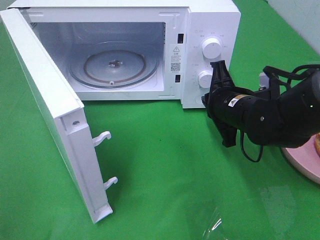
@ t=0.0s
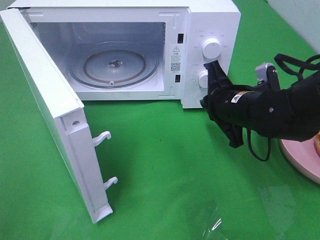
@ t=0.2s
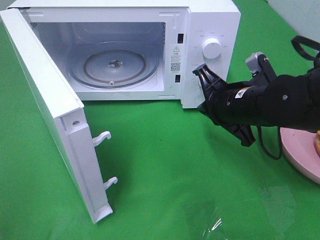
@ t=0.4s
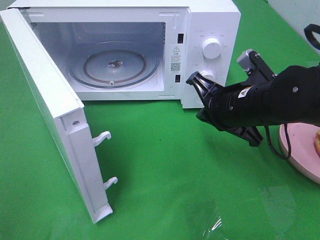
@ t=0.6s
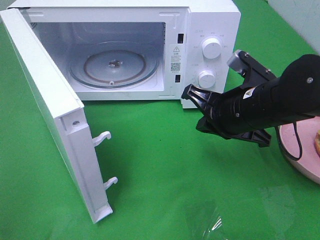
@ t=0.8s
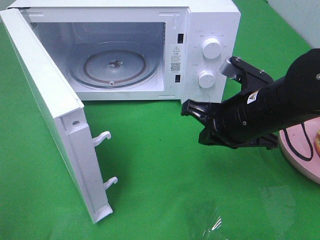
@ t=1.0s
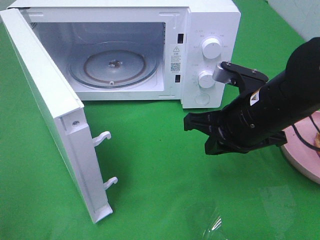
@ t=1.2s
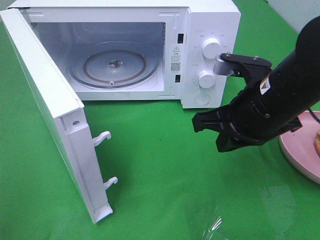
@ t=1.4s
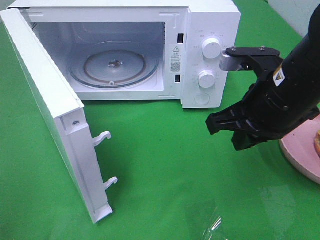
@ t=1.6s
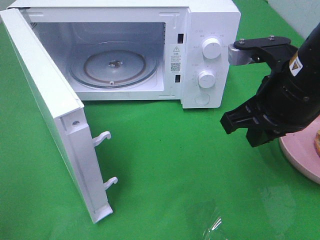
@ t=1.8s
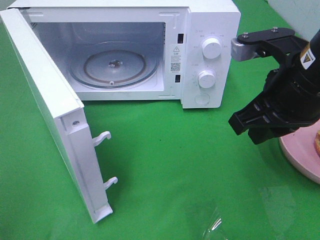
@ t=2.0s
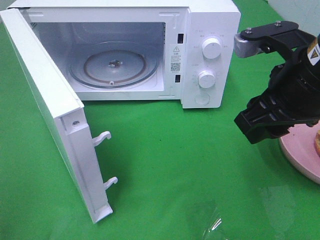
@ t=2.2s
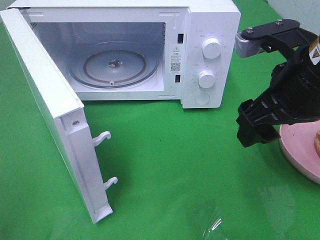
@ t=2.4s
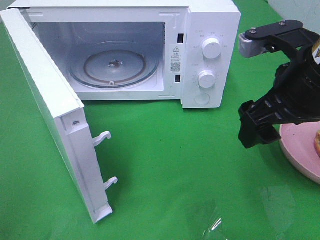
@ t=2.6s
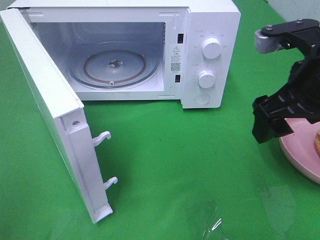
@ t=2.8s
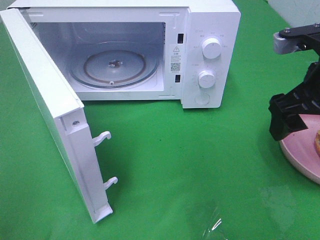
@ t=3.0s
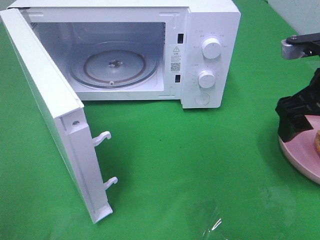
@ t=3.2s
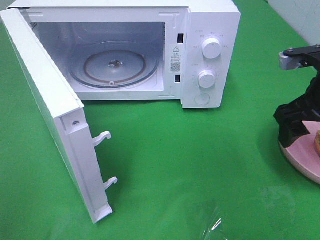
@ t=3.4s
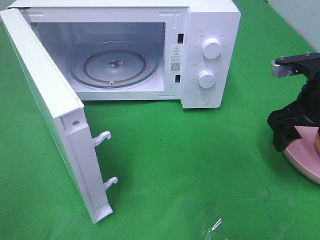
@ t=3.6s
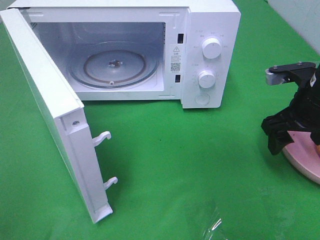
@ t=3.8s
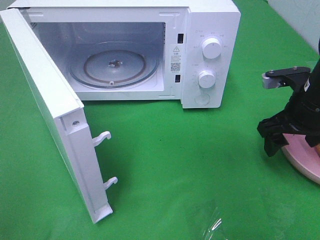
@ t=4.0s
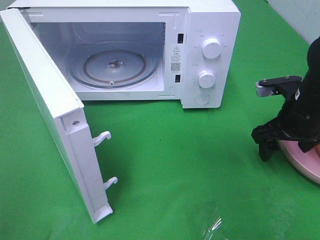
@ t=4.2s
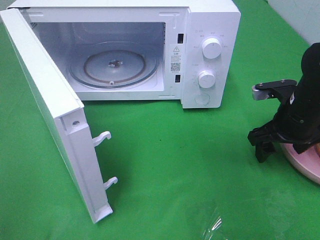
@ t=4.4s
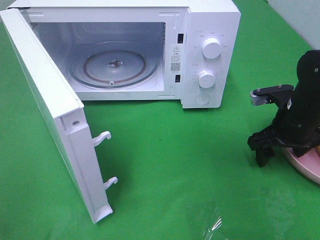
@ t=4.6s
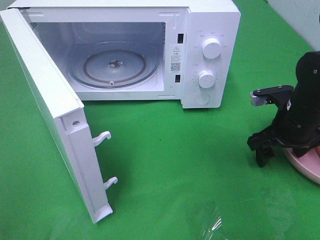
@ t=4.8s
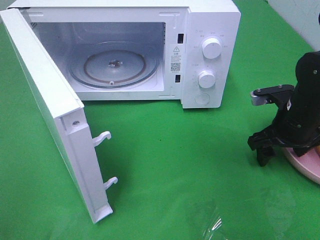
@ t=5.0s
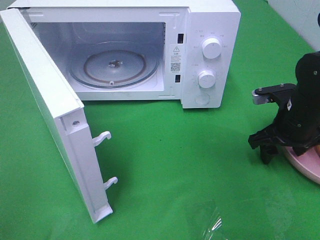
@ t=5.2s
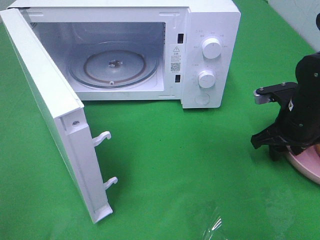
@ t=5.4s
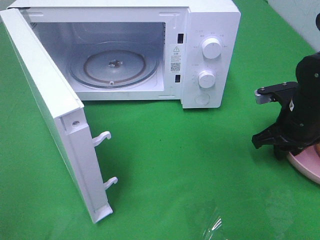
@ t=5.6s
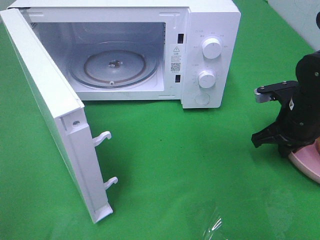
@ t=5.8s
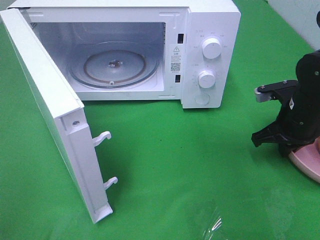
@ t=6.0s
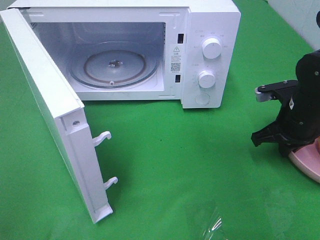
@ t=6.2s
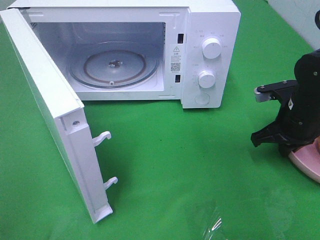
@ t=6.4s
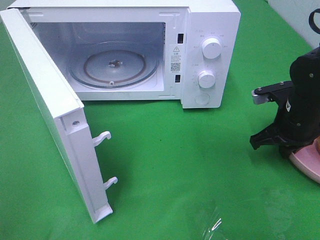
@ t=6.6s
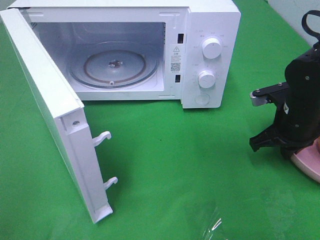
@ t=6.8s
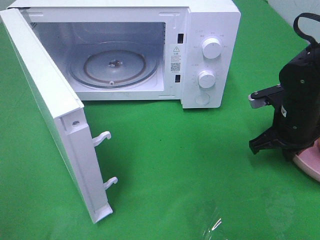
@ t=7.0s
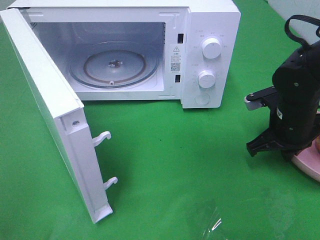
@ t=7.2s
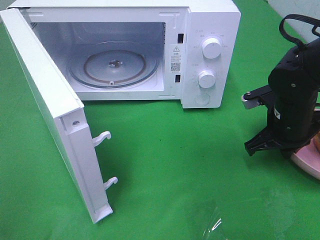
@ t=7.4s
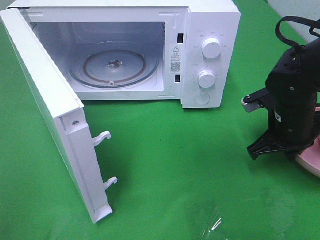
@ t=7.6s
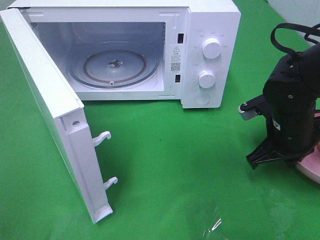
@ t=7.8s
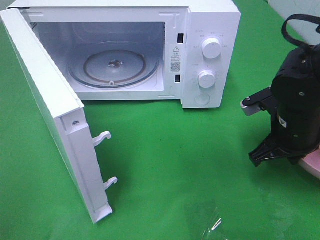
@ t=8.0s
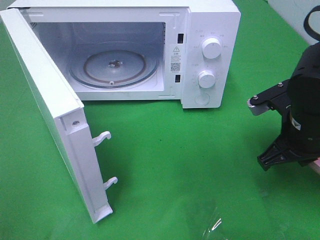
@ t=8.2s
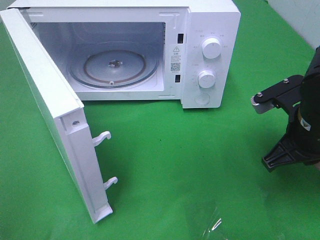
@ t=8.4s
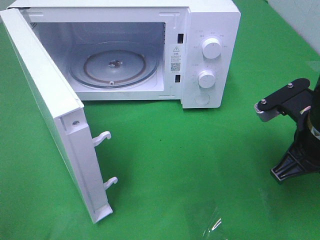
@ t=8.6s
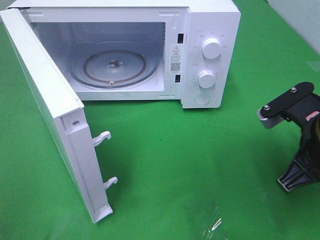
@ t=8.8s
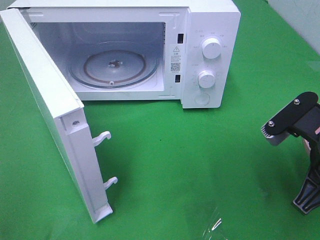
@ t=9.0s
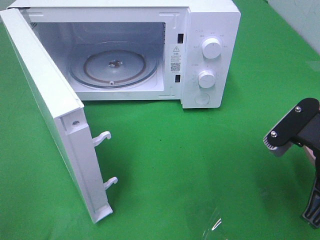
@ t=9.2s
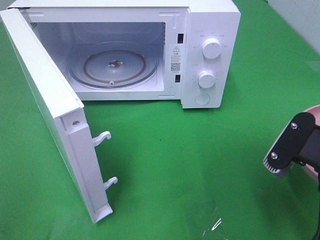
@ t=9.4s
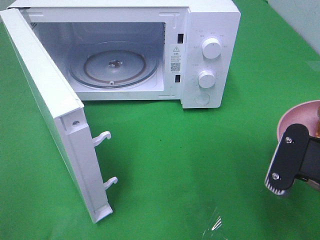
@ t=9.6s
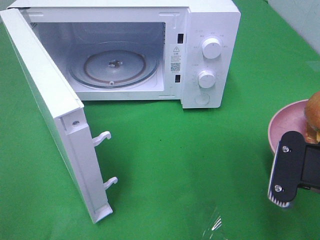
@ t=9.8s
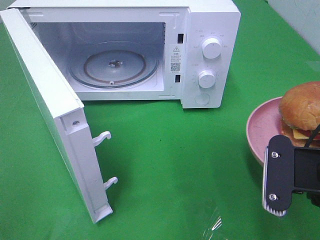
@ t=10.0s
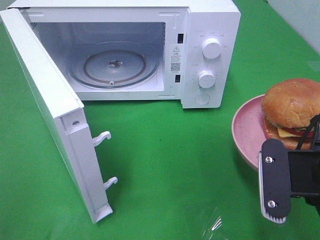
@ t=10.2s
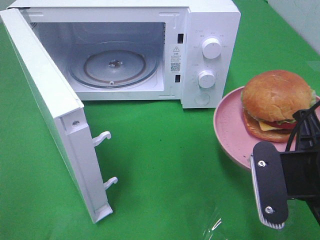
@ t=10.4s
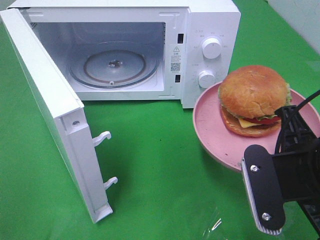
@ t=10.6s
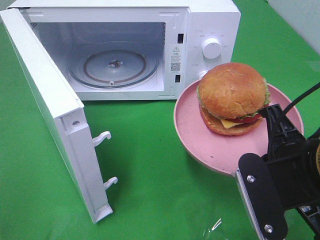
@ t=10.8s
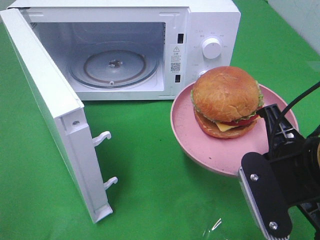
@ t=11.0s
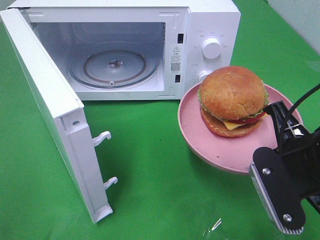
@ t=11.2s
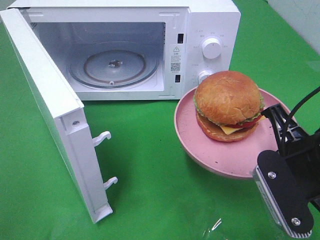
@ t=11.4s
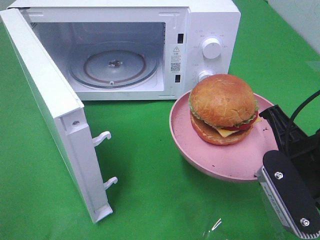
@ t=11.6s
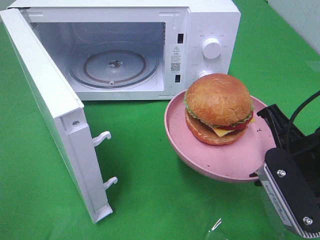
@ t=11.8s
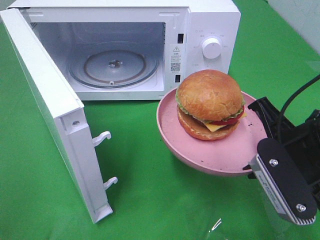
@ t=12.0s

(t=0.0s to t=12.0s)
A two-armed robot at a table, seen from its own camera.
Task of the whole recording: Heat the burger.
Step, t=0.0s - t=6.8s: Right hand: grab the plate with the hamburger.
t=0.0s - t=1.6s: The right gripper shifts some 10 cm upward and backward.
t=1.6s - t=3.0s: The right gripper goes approximately 5 cm to the right, and opens up.
t=3.0s - t=4.4s: The right gripper is displaced downward and forward by roughly 15 cm.
t=4.4s - t=6.0s: The right gripper closes.
t=6.0s - t=7.6s: The grippers move only a little.
t=7.6s - t=9.0s: The right gripper goes about 15 cm backward and upward.

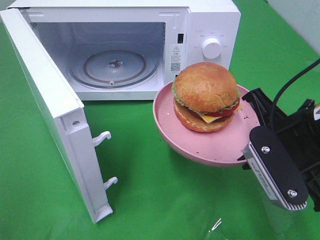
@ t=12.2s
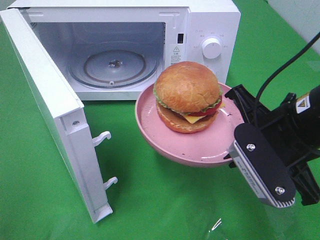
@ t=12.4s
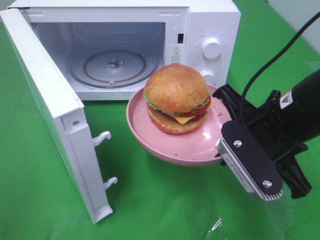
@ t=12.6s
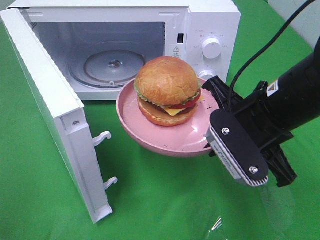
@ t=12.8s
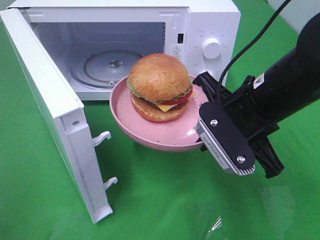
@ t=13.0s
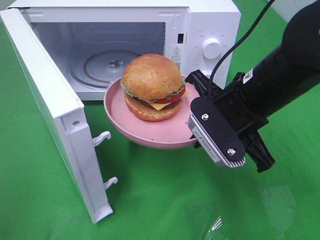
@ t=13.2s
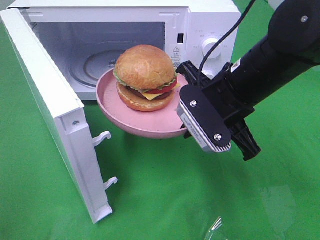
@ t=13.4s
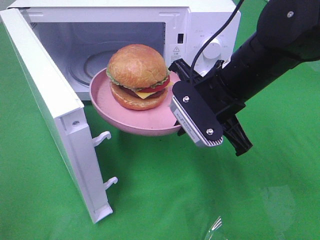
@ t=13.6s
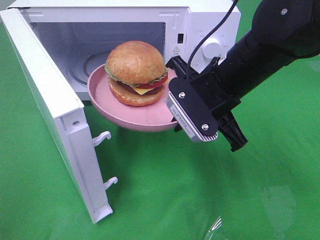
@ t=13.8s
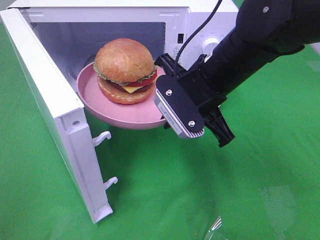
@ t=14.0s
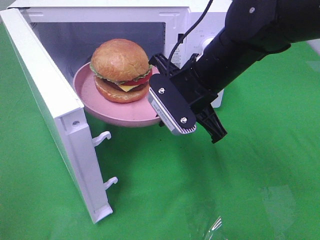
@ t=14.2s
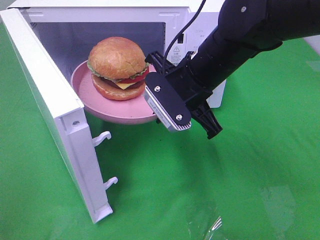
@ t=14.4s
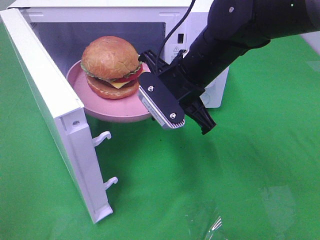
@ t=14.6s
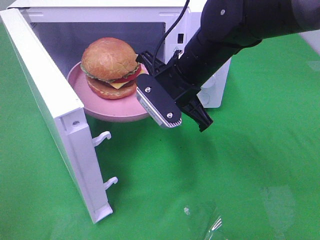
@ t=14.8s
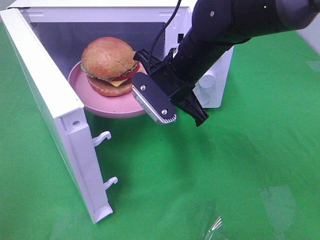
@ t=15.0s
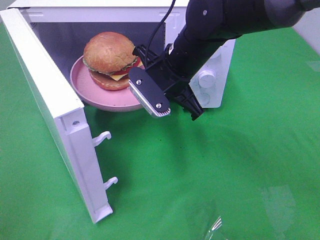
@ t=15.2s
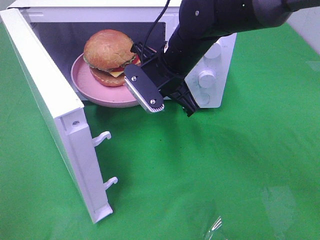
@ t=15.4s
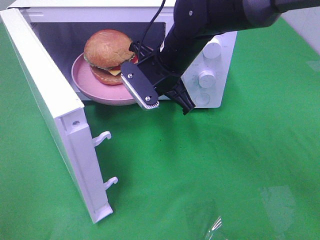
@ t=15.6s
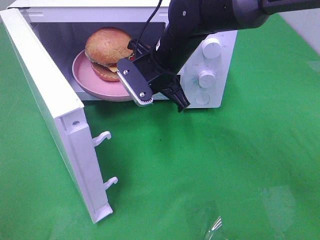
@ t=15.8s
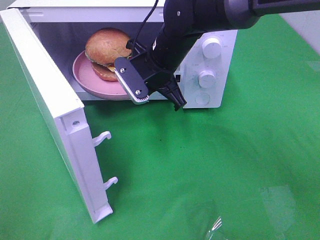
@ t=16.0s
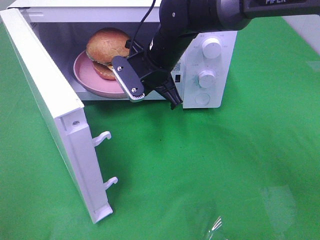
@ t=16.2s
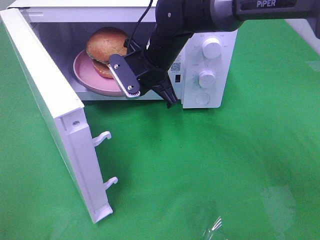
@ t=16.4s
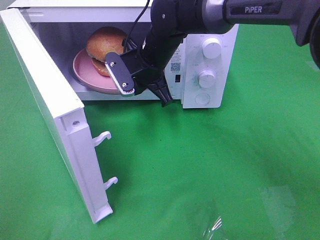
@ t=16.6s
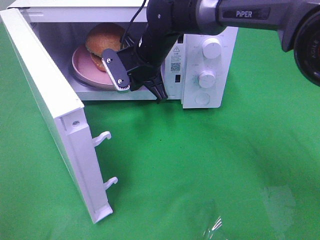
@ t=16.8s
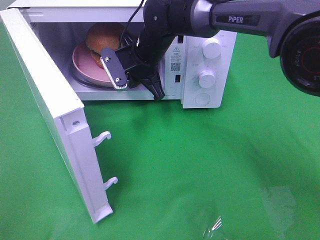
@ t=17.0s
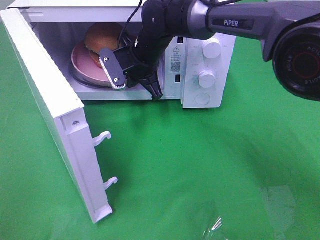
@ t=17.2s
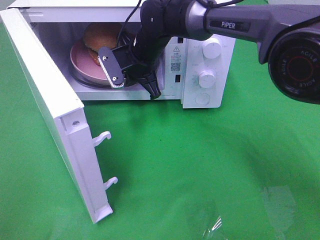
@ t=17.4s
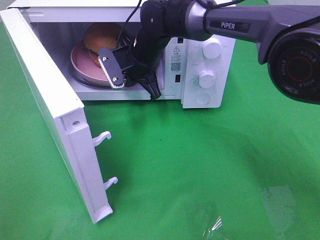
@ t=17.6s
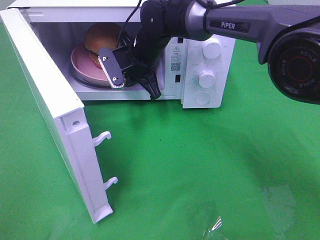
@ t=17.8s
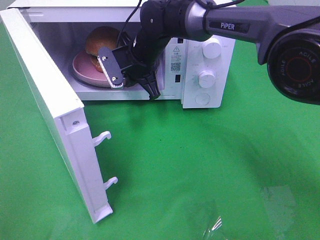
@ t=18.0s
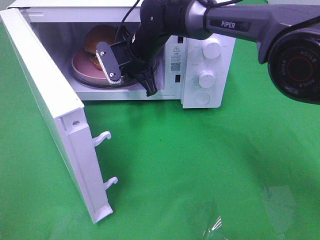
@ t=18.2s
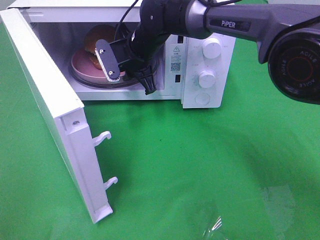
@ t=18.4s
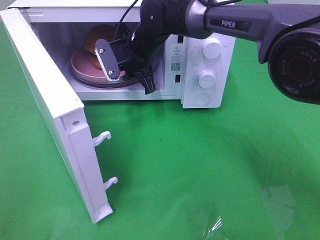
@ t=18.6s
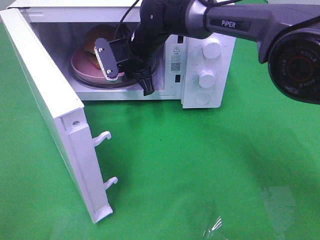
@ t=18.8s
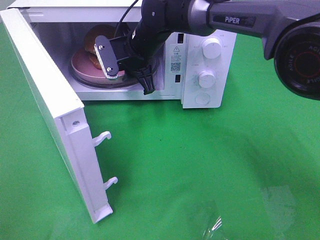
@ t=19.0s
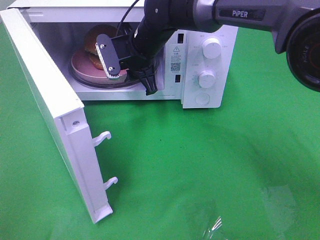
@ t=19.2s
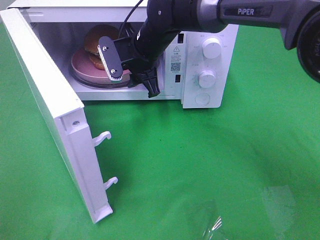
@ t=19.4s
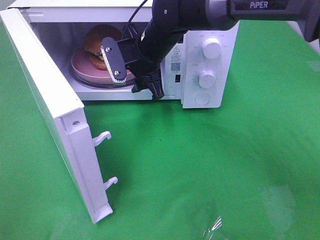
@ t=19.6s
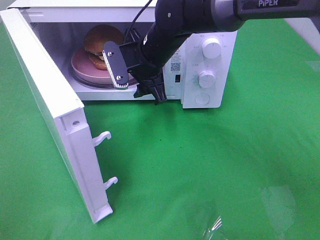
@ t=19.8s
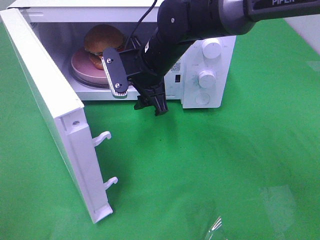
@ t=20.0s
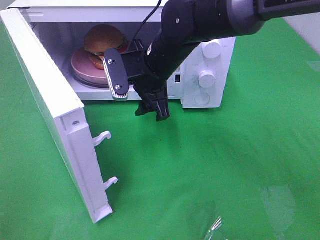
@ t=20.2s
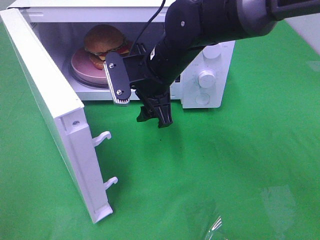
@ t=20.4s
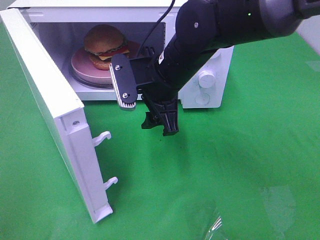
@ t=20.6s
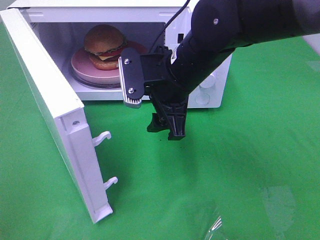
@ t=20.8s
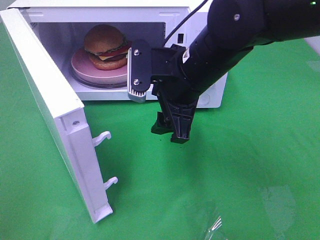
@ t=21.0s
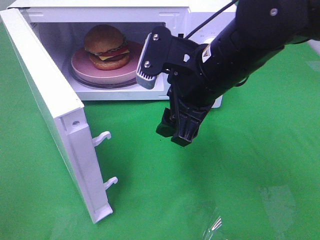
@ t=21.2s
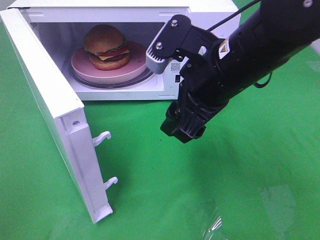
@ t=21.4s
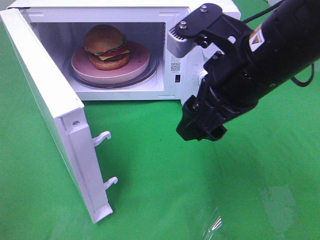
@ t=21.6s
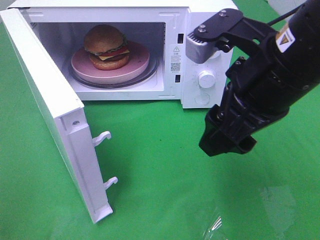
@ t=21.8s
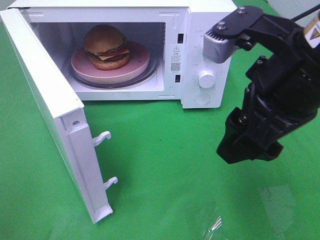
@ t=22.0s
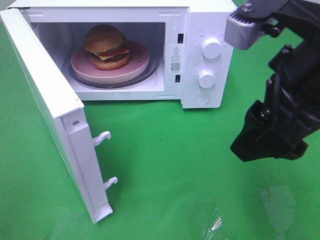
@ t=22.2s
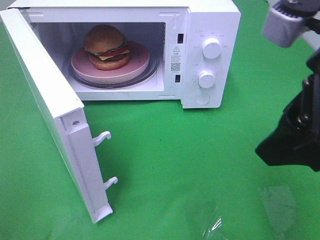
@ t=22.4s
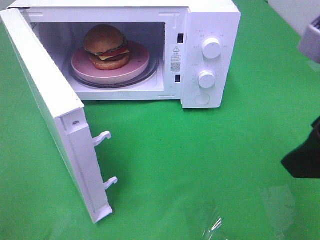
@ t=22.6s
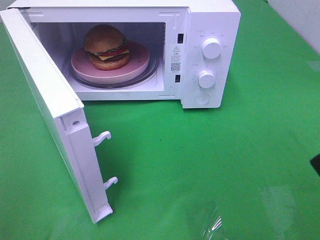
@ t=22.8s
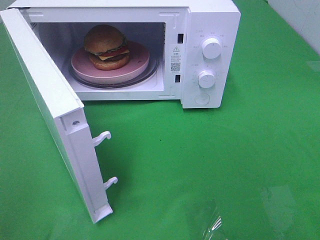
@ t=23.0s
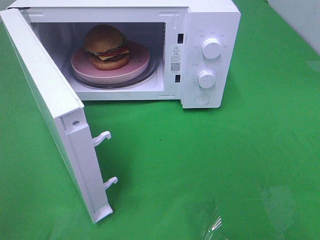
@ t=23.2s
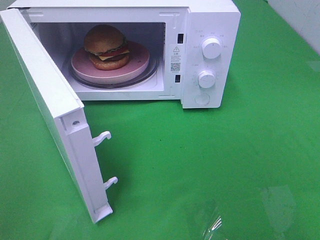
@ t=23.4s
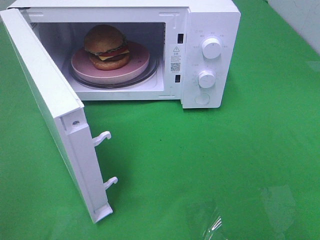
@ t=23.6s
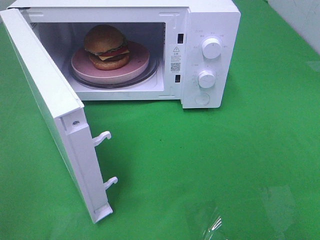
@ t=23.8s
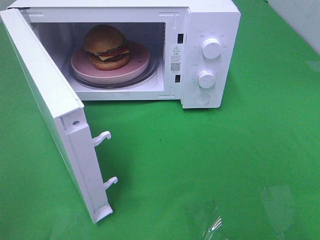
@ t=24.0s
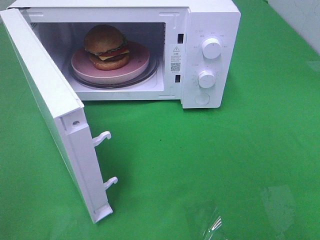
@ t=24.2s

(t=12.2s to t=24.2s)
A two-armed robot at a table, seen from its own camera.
Task of the whole recording: Heat the burger.
Step, t=12.2s - t=19.0s: Right hand: place the plate in the microwave.
t=12.2s - t=13.8s: The right gripper moves to the left and forward, about 10 cm.
t=13.8s - t=15.2s: The right gripper heads forward and to the left, covering about 10 cm.
t=15.2s - t=16.6s: The right gripper shifts about 5 cm forward.
t=16.6s - t=18.2s: The grippers make only small movements.
t=18.2s - t=19.8s: The right gripper shifts by about 5 cm, and opens its fingers.
t=19.8s - t=21.2s: The right gripper moves backward and to the right, some 15 cm.
t=21.2s - t=22.6s: The right gripper heads to the right, backward and upward, covering roughly 20 cm.
t=22.6s - t=24.2s: The right gripper heads backward and to the right, covering roughly 15 cm.
